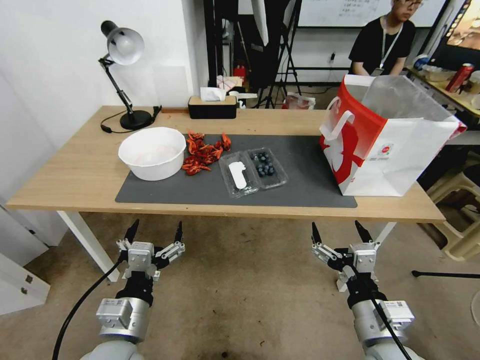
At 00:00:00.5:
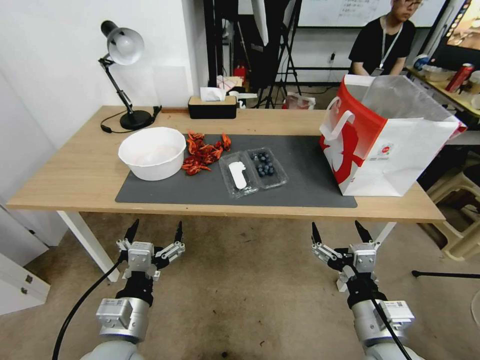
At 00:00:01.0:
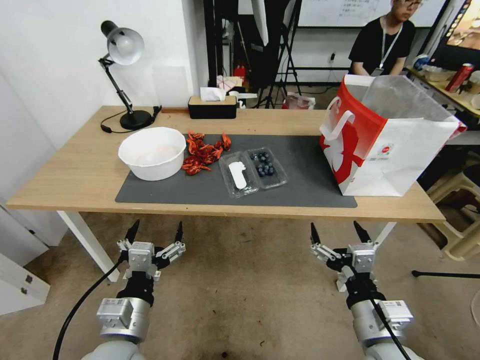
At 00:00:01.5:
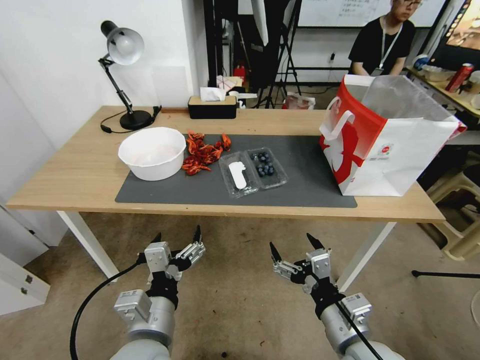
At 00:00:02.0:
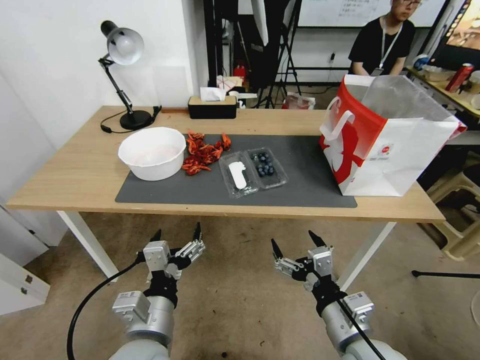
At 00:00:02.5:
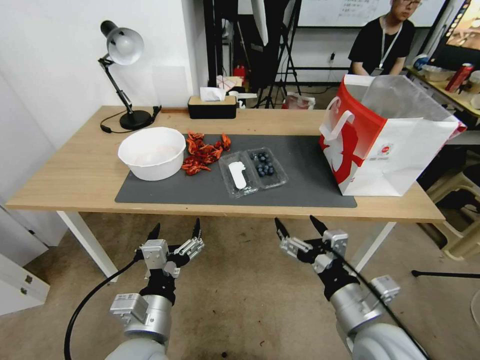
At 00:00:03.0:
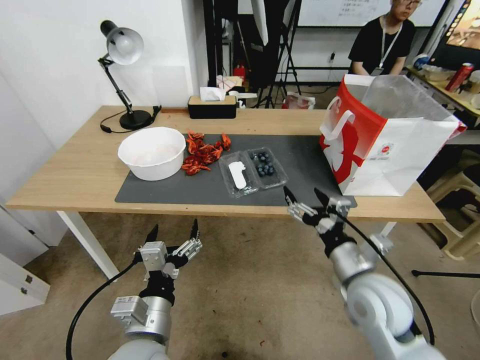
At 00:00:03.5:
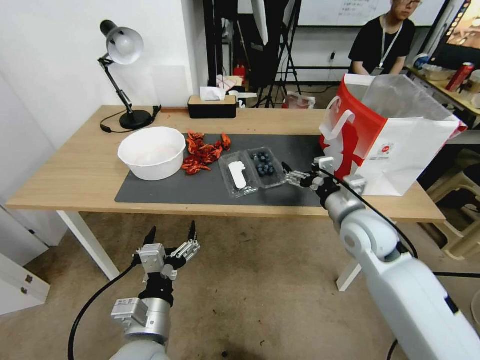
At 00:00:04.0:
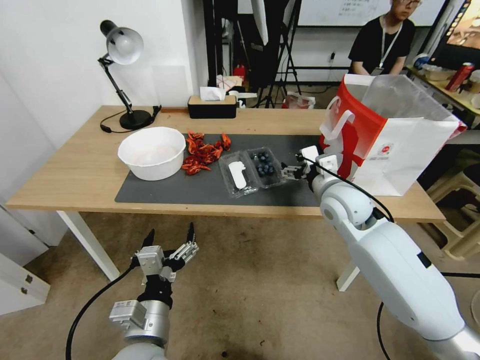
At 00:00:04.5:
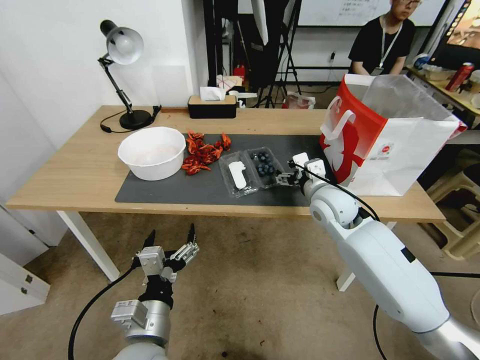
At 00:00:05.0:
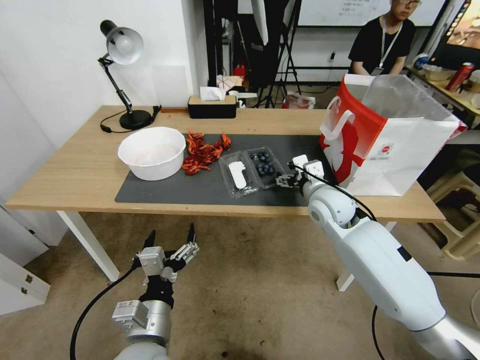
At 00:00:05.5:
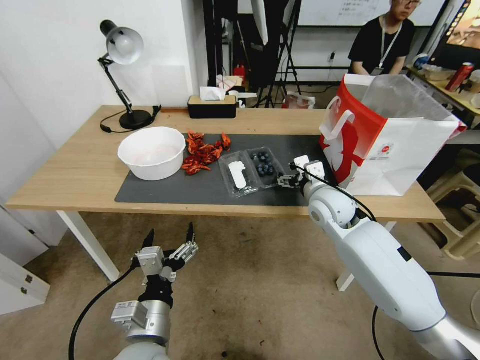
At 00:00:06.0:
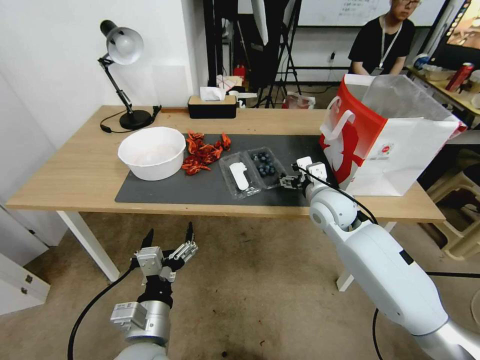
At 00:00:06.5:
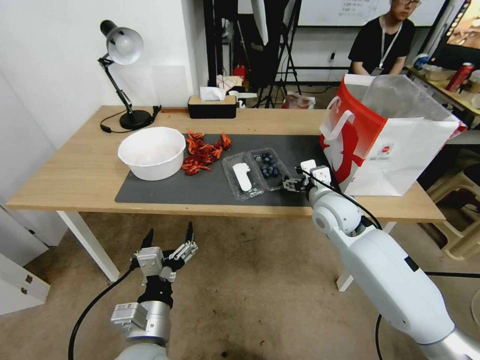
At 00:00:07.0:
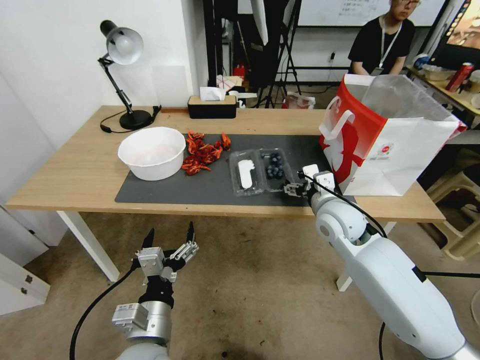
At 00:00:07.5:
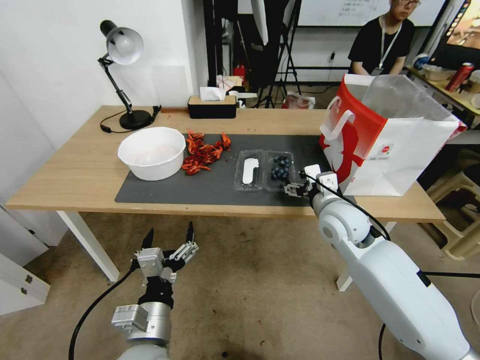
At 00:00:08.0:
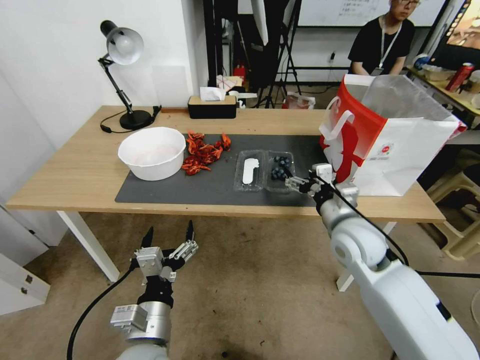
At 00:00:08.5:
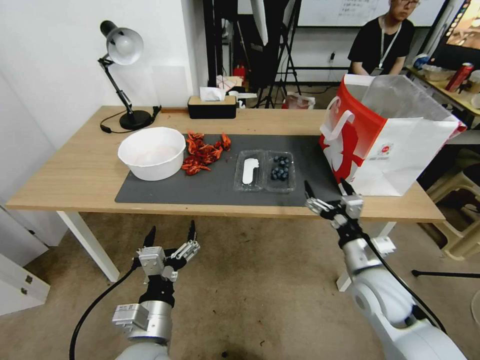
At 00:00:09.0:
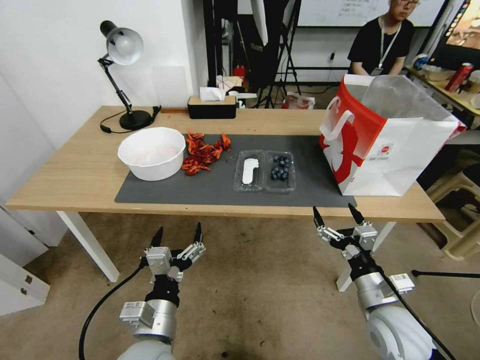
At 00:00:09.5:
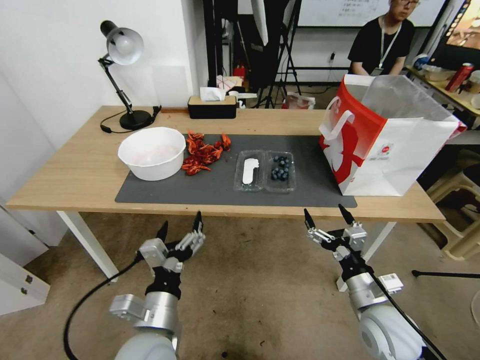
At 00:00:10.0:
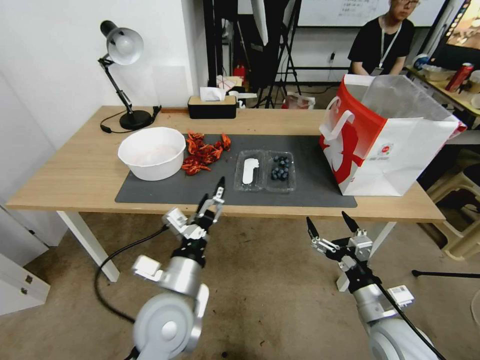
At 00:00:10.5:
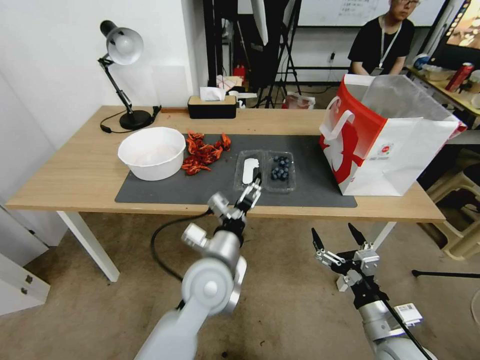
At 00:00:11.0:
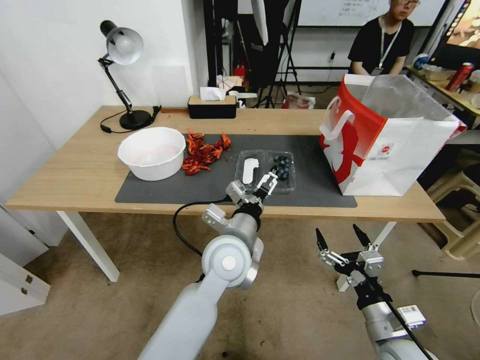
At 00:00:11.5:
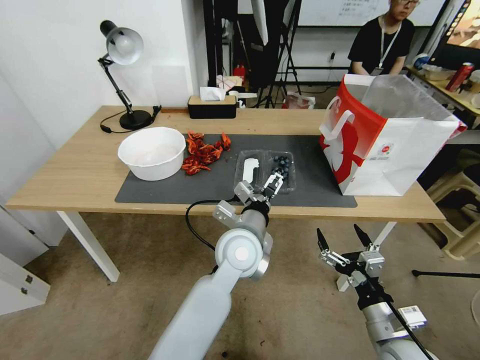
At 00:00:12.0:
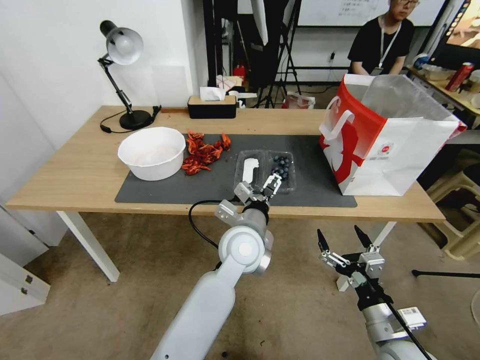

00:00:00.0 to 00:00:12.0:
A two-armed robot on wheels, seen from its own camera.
Task of the whole recording: Close the takeout container lid, then place the container into the takeout bag.
00:00:02.0 to 00:00:04.0: The right gripper moves forward, some 25 cm.
00:00:04.0 to 00:00:06.0: The grippers make only small movements.
00:00:06.0 to 00:00:08.0: The right gripper is displaced backward by roughly 10 cm.
00:00:08.0 to 00:00:10.0: The left gripper shifts approximately 5 cm forward. Meanwhile the right gripper travels backward and downward by roughly 20 cm.
00:00:10.0 to 00:00:12.0: The left gripper goes roughly 20 cm to the right and forward.

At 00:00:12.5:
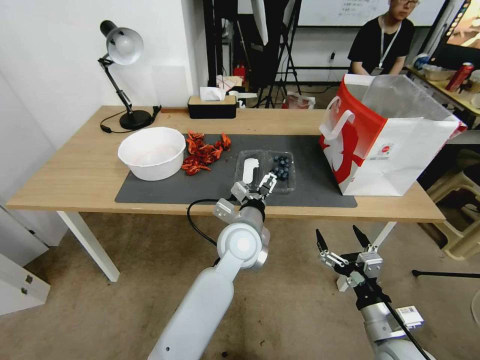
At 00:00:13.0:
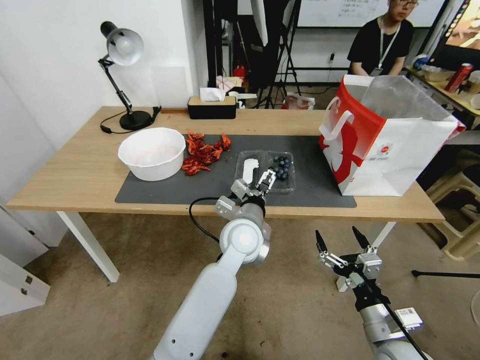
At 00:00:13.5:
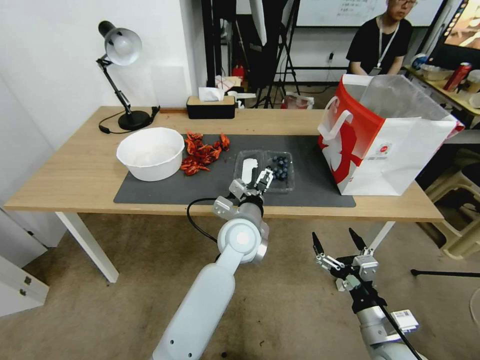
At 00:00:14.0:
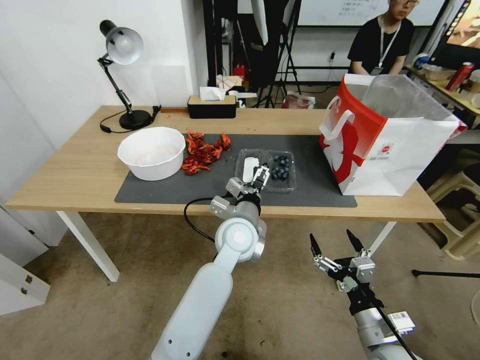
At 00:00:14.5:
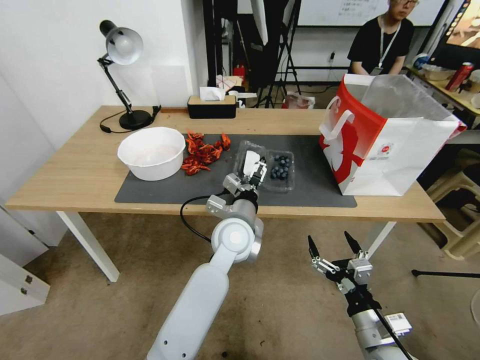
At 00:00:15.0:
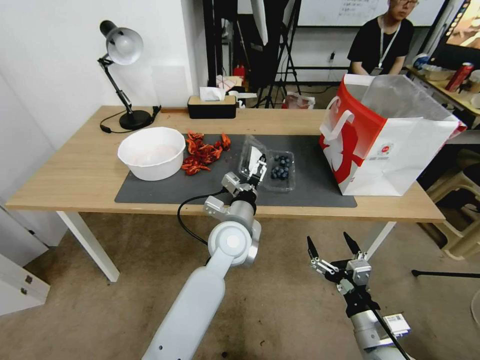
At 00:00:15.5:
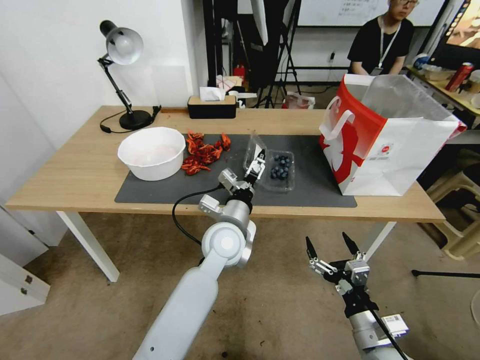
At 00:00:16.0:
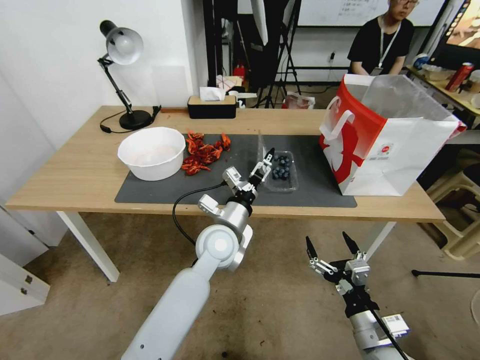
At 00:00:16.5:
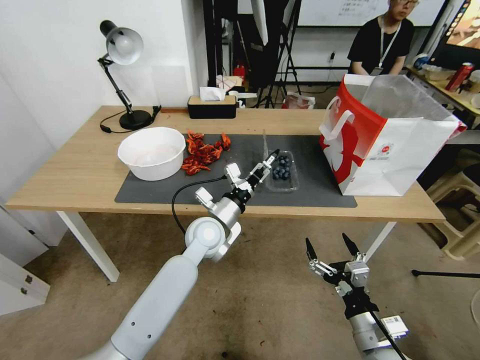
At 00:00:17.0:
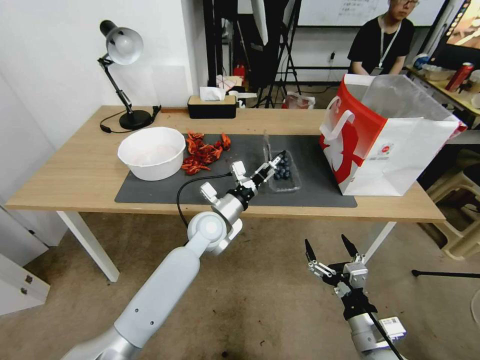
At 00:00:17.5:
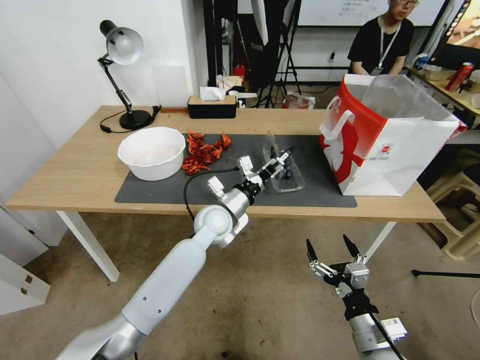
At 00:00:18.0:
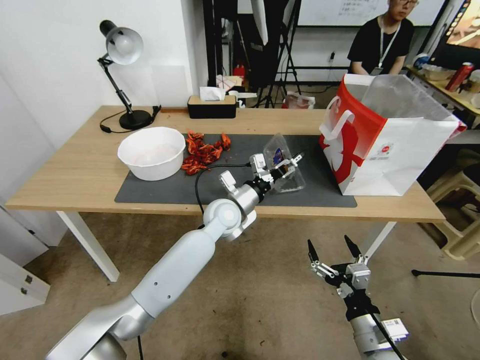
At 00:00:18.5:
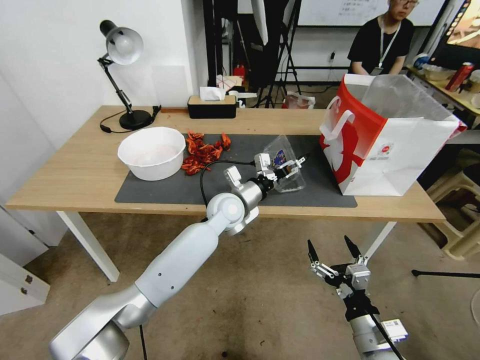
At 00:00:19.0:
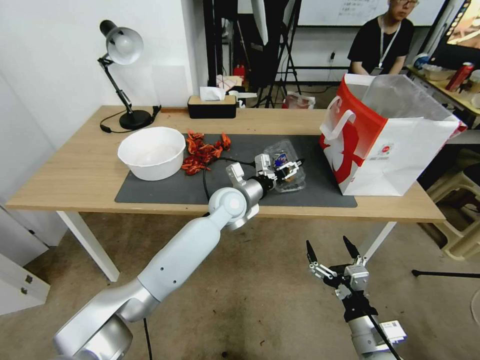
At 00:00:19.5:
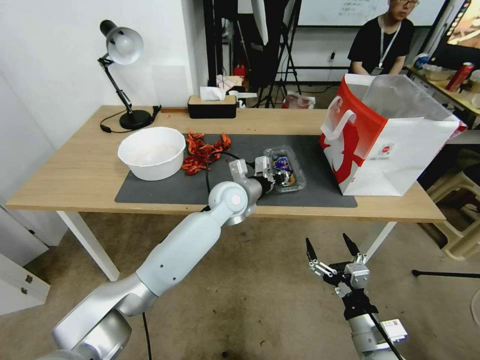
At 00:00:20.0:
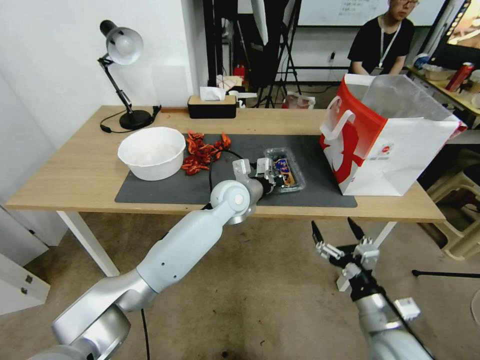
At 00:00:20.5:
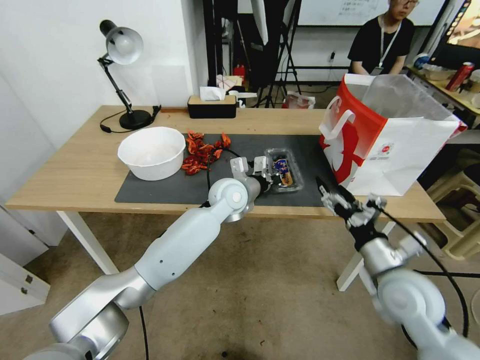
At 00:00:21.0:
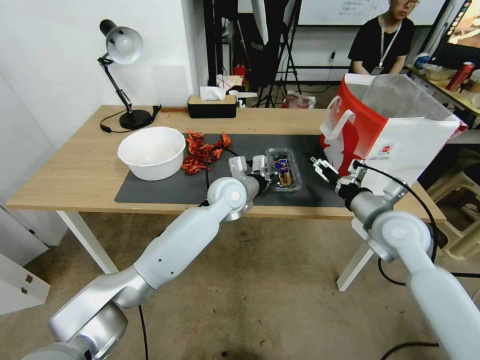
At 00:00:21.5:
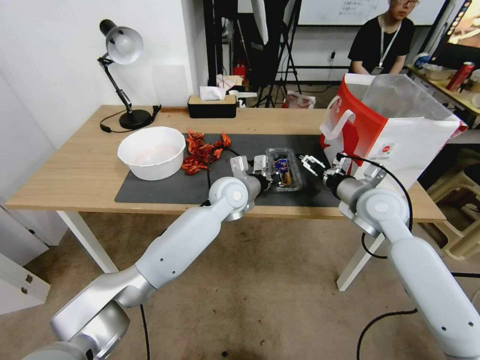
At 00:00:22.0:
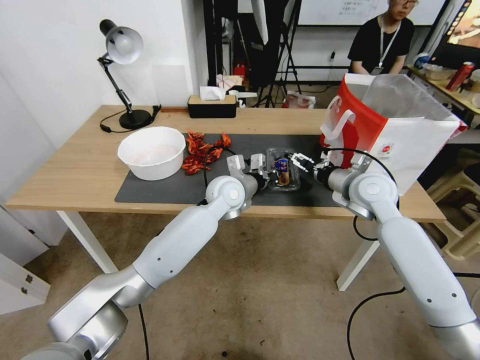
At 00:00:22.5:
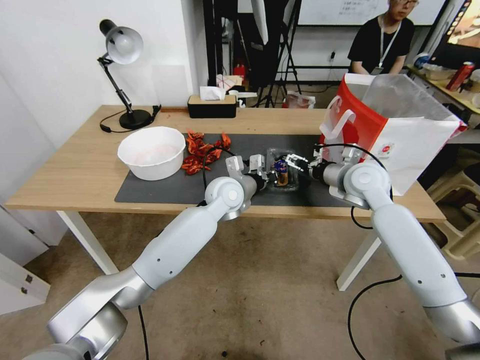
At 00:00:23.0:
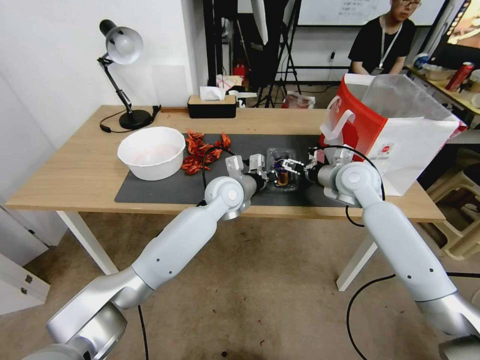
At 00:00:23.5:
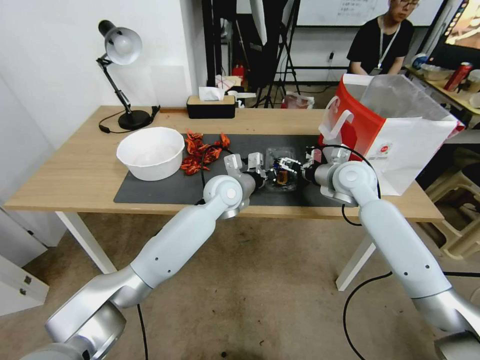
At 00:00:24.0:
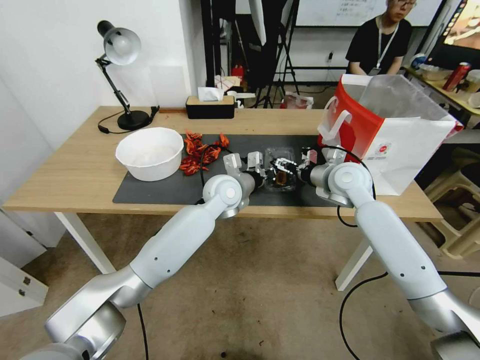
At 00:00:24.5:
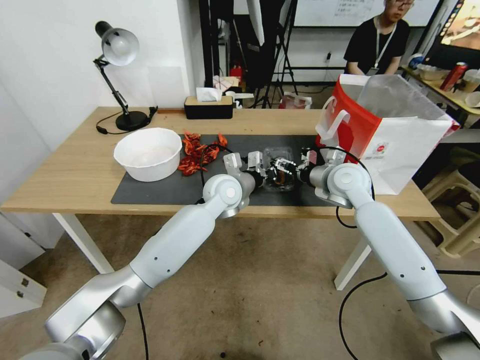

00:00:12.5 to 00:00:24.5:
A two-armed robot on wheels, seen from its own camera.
Task of the whole recording: Close the takeout container lid, then place the container into the takeout bag.
00:00:12.5 to 00:00:14.5: The grippers make only small movements.
00:00:14.5 to 00:00:16.5: The left gripper is displaced to the left by approximately 5 cm.
00:00:16.5 to 00:00:18.5: The left gripper moves forward, about 5 cm.
00:00:18.5 to 00:00:20.5: The left gripper closes up, while the right gripper travels forward and upward by approximately 15 cm.
00:00:20.5 to 00:00:22.5: The right gripper shifts approximately 20 cm forward.

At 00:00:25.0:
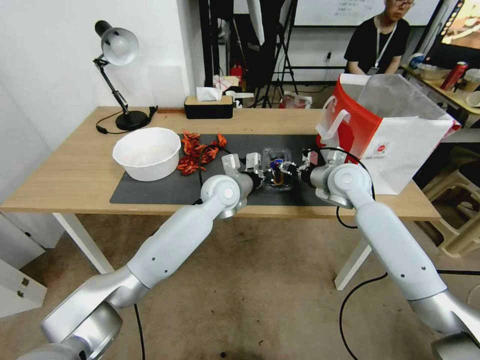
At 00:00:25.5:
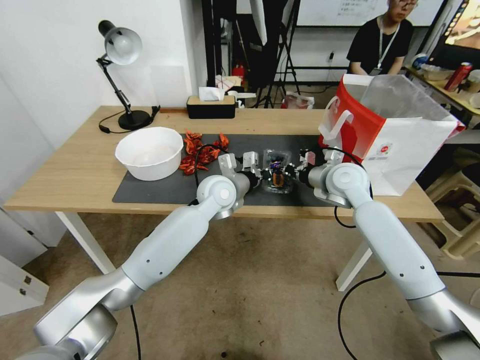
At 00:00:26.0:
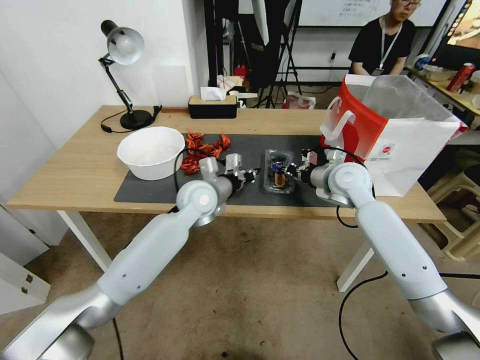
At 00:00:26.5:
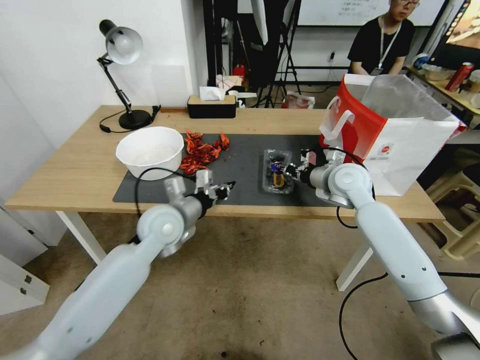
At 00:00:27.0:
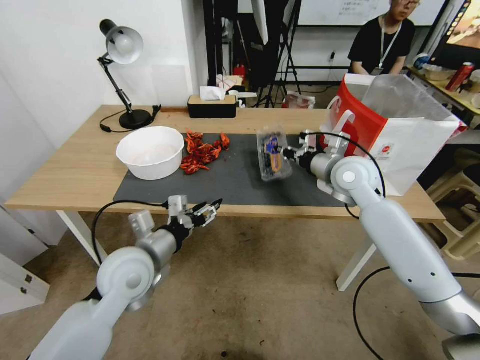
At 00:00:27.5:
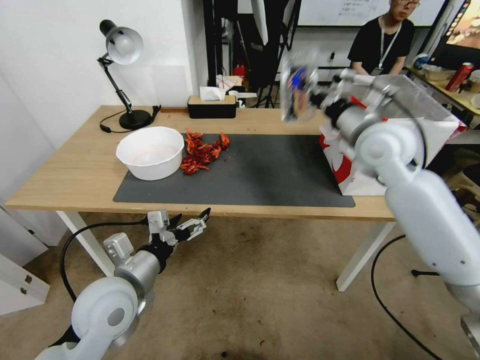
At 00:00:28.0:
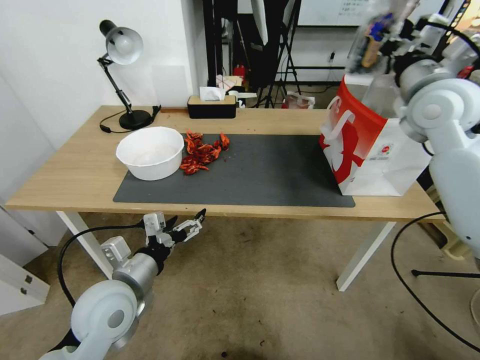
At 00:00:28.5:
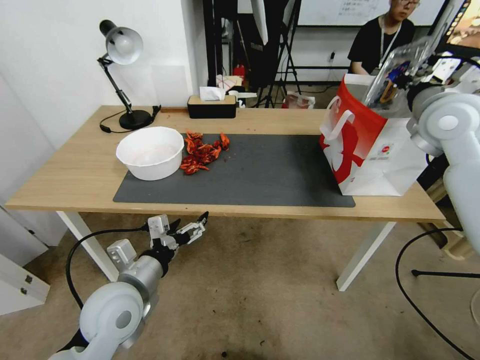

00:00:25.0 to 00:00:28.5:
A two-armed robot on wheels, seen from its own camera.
Task of the whole recording: Close the takeout container lid, then place the container into the takeout bag.
00:00:25.0 to 00:00:27.0: The left gripper is displaced backward and to the left by roughly 25 cm, and opens up. Meanwhile the right gripper closes.
00:00:27.0 to 00:00:28.5: The right gripper heads upward and to the right, covering roughly 20 cm, while the left gripper goes roughly 5 cm backward, and opens.
